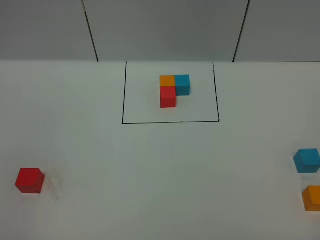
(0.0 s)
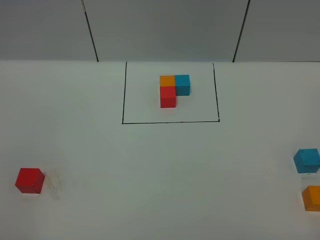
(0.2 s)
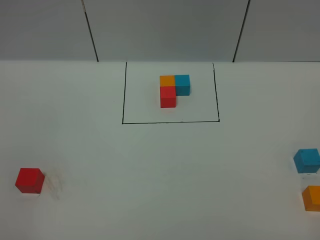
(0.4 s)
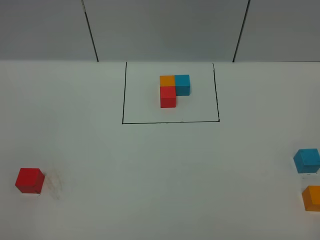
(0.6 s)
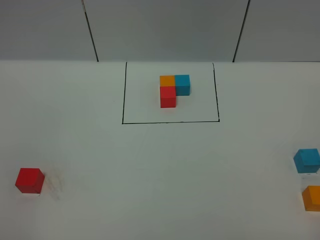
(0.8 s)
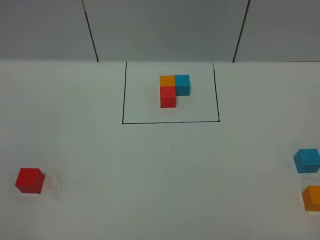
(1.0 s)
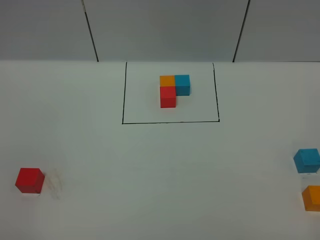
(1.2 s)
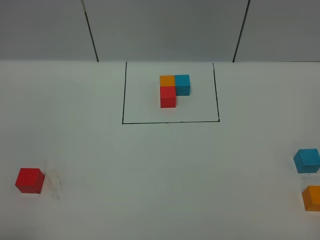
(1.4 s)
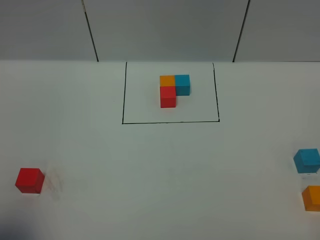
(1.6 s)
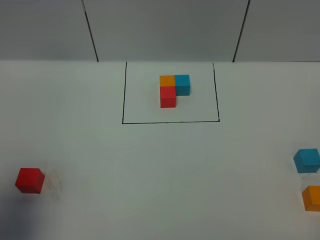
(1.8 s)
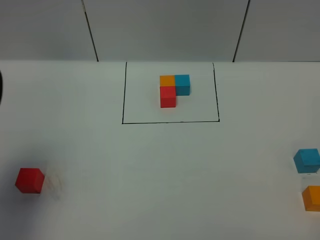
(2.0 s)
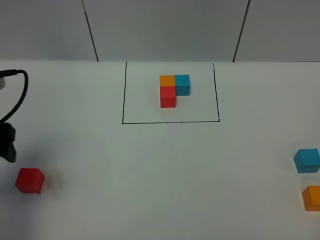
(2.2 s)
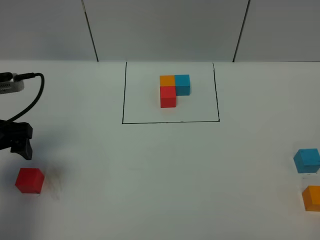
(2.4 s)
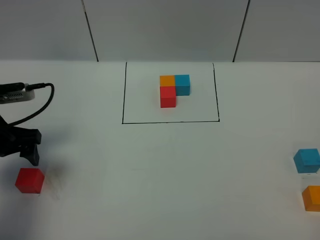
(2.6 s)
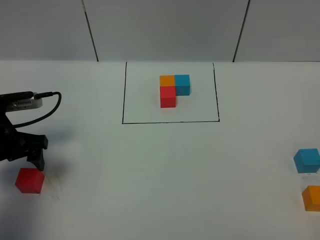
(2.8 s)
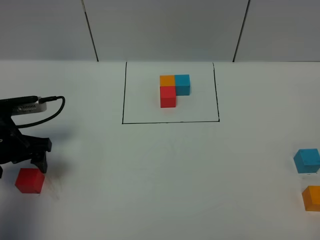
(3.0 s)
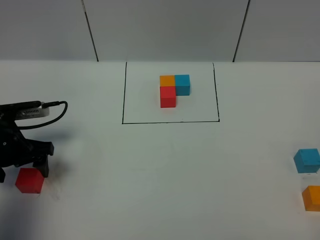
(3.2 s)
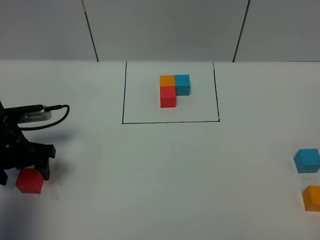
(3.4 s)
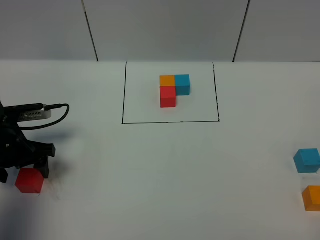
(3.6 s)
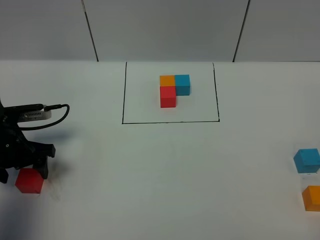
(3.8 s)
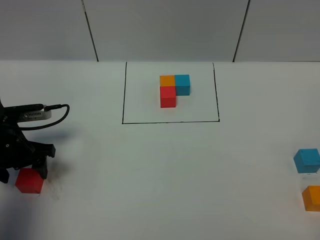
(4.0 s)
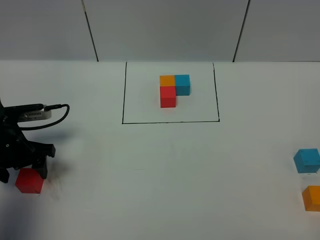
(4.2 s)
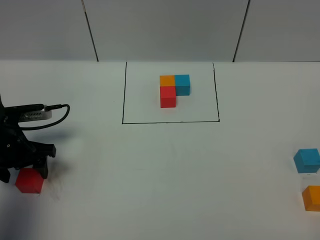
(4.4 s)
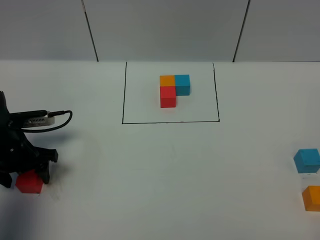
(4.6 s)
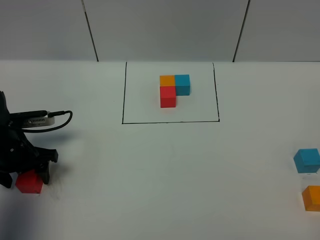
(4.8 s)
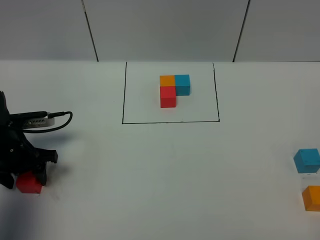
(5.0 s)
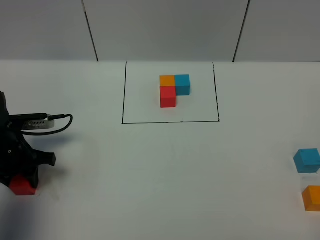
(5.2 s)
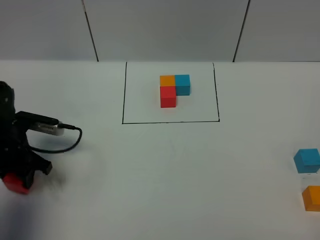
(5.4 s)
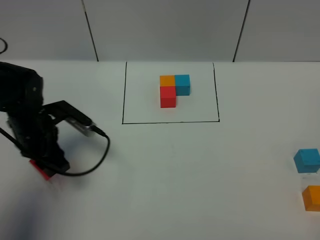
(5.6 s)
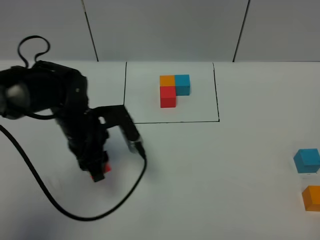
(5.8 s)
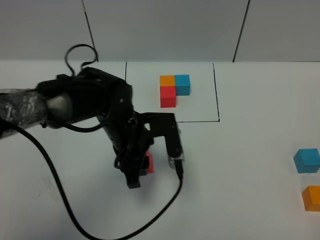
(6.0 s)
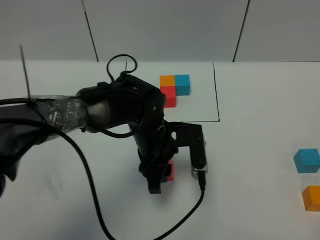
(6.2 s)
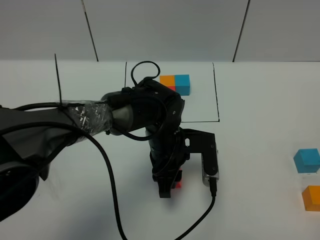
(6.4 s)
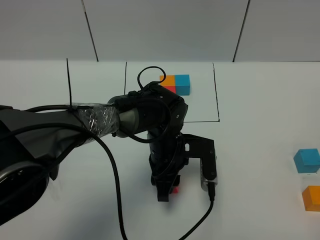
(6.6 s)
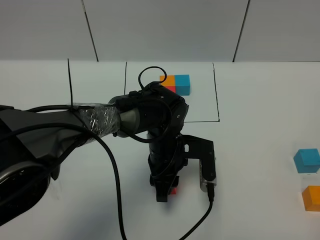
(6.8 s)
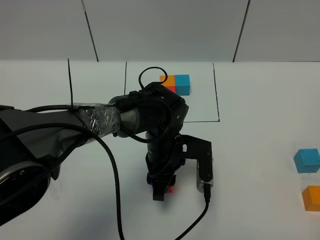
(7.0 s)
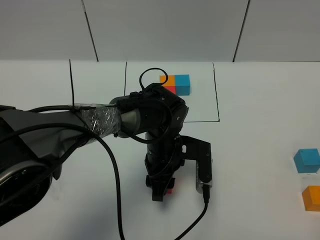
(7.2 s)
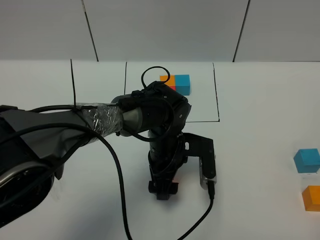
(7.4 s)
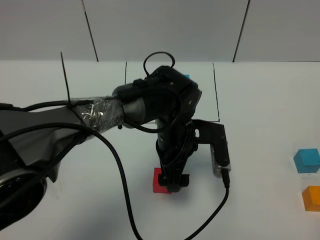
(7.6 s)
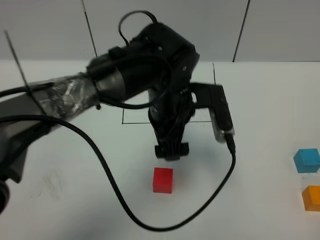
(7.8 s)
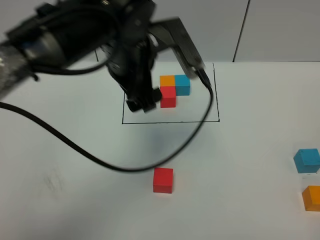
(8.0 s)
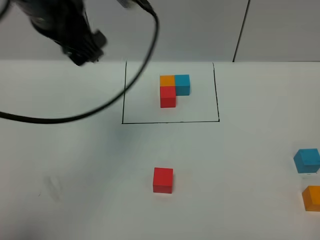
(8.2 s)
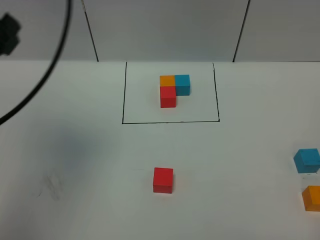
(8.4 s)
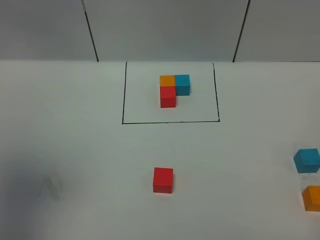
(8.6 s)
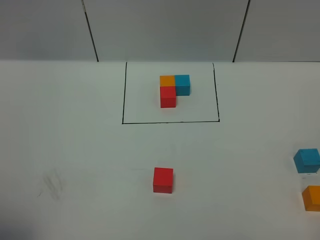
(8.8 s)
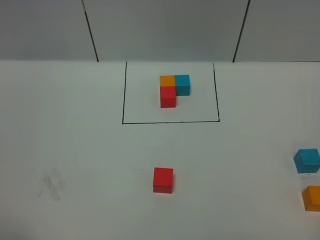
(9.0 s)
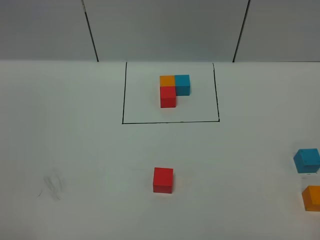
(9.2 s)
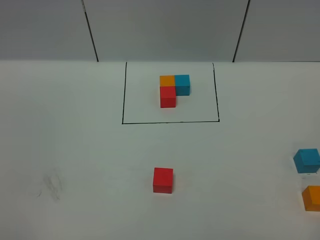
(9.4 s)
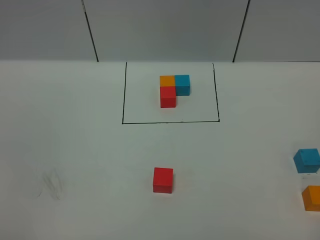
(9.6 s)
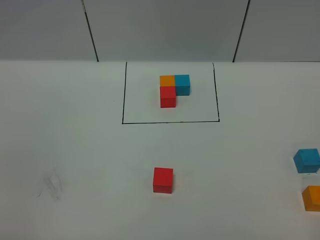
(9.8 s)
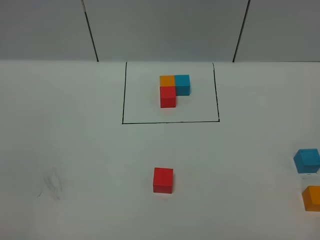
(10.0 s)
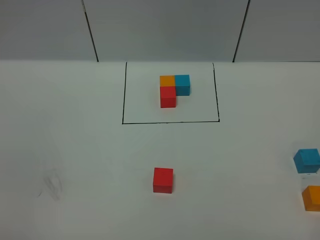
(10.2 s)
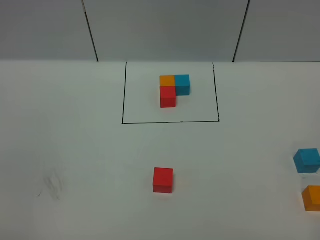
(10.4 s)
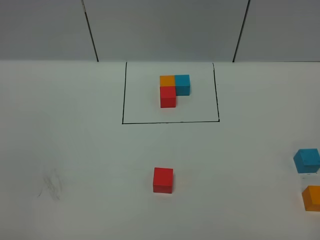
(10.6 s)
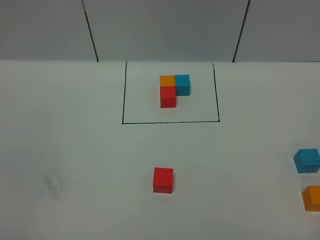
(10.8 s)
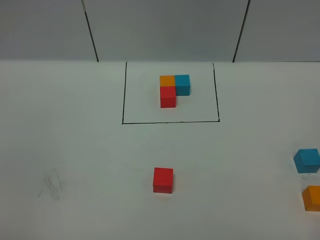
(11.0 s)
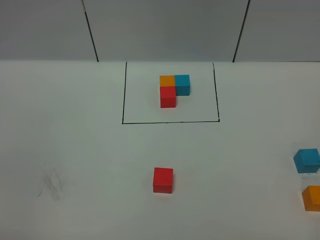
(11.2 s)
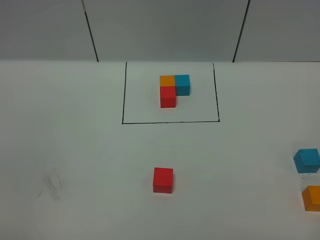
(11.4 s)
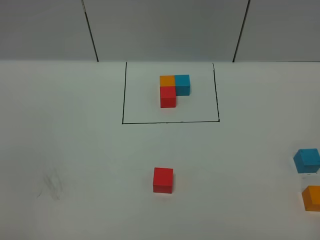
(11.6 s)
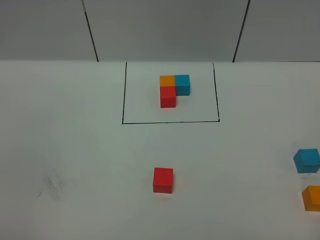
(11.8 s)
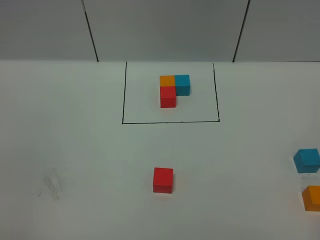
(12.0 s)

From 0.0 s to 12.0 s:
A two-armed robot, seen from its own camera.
Task of the whole recording: According to the building block template in front, assemble the scattered blocks together.
Step, from 1.8 s to 7.4 s: Put the red cube in the center of the table.
From 0.0 s to 1.6 s: The left gripper moves forward and upward, some 10 cm, and opens up.
From 1.6 s to 3.0 s: The left gripper travels forward and downward by about 30 cm, and opens its fingers.
From 3.0 s to 4.4 s: The grippers move only a little.
From 4.4 s to 6.0 s: The left gripper travels to the right by some 25 cm.
From 6.0 s to 7.6 s: The left gripper travels to the right by about 10 cm, and opens.
From 7.6 s to 9.0 s: The left gripper shifts some 50 cm to the left, backward and upward.

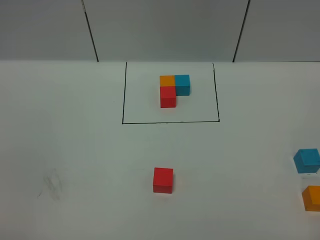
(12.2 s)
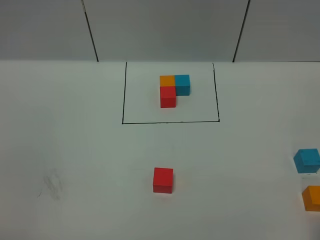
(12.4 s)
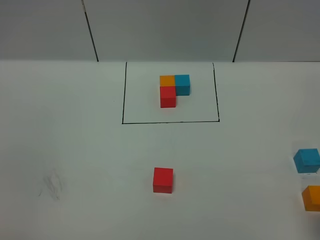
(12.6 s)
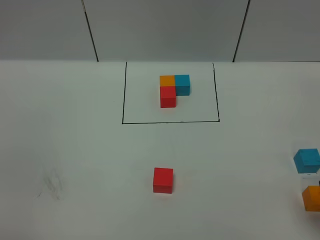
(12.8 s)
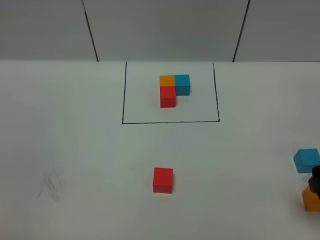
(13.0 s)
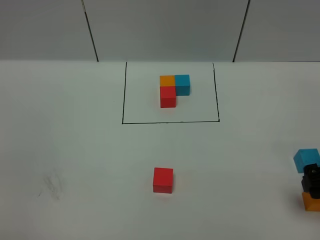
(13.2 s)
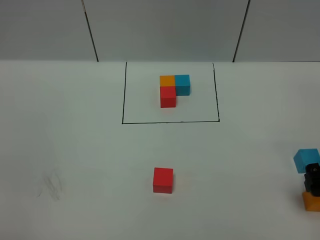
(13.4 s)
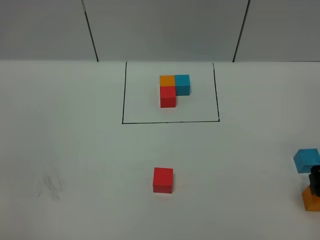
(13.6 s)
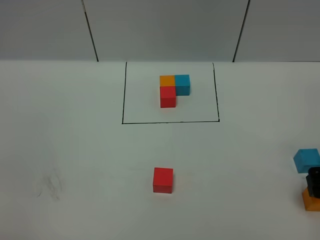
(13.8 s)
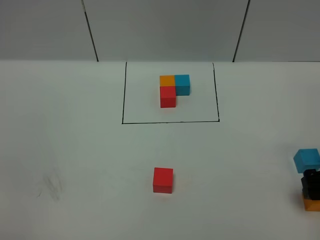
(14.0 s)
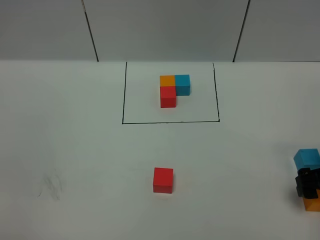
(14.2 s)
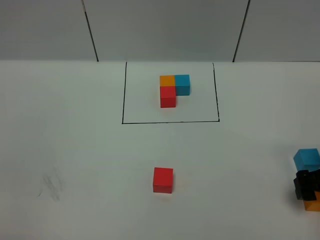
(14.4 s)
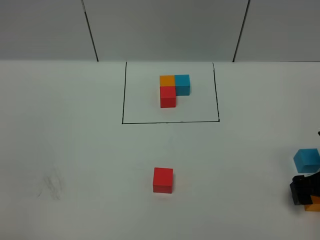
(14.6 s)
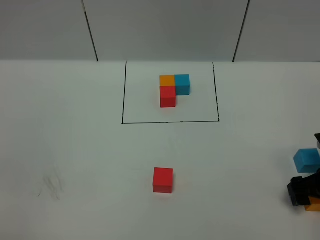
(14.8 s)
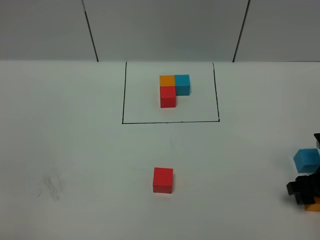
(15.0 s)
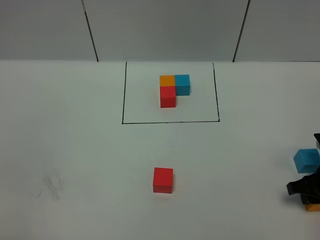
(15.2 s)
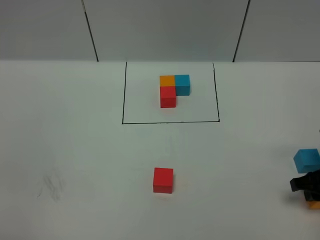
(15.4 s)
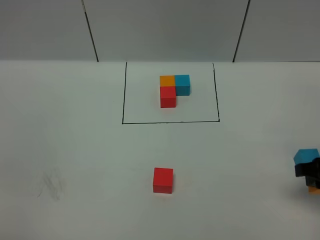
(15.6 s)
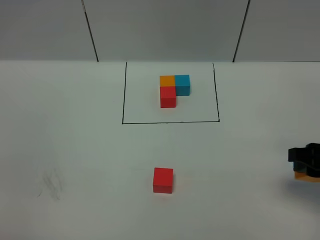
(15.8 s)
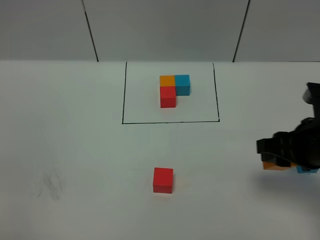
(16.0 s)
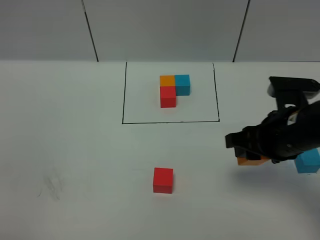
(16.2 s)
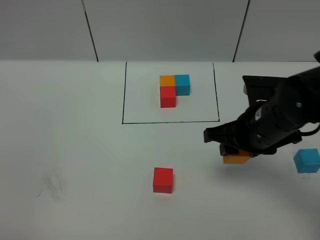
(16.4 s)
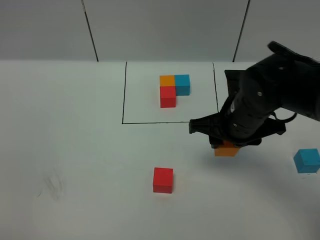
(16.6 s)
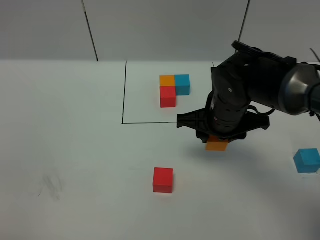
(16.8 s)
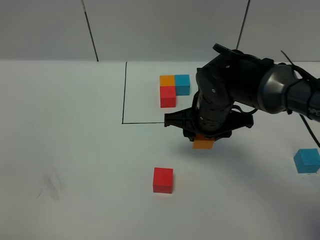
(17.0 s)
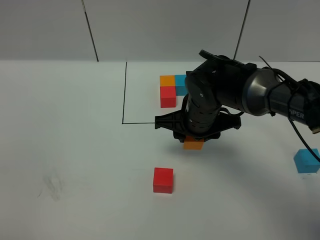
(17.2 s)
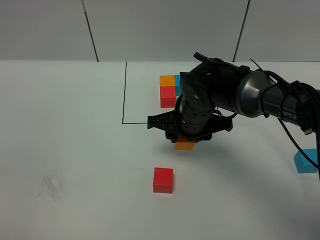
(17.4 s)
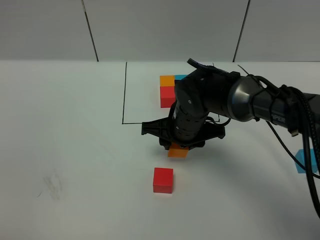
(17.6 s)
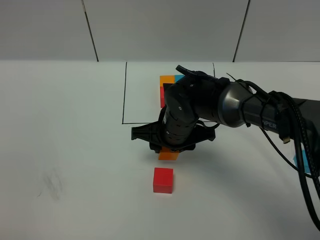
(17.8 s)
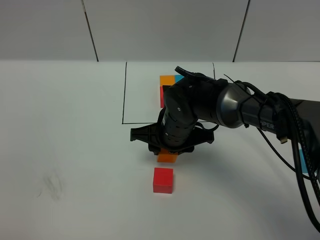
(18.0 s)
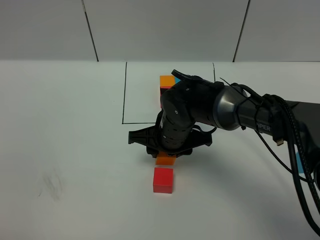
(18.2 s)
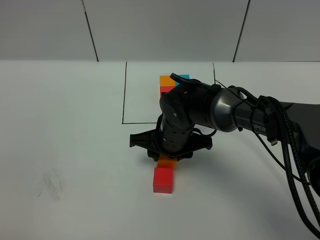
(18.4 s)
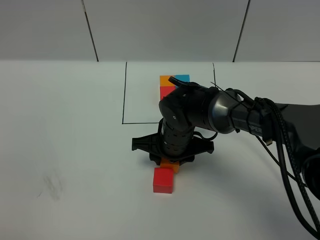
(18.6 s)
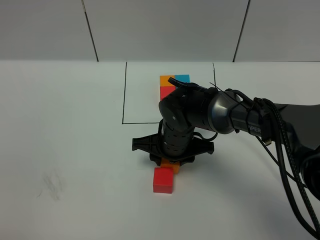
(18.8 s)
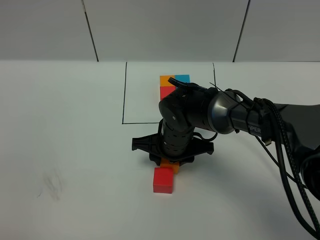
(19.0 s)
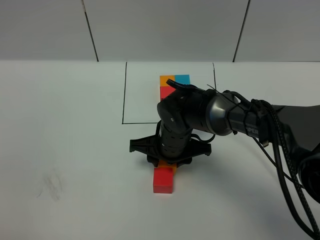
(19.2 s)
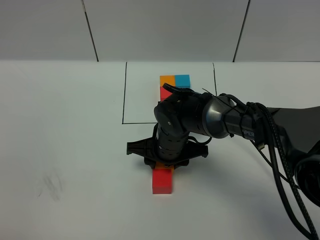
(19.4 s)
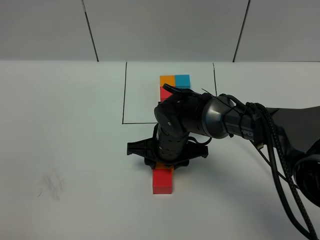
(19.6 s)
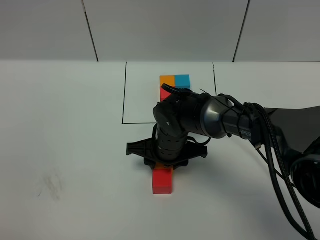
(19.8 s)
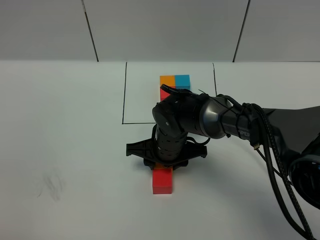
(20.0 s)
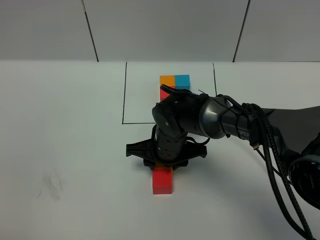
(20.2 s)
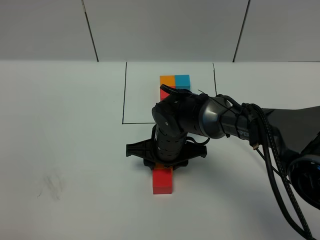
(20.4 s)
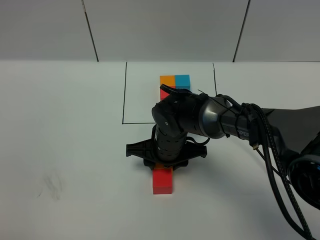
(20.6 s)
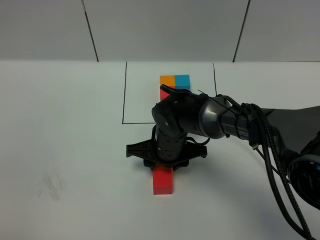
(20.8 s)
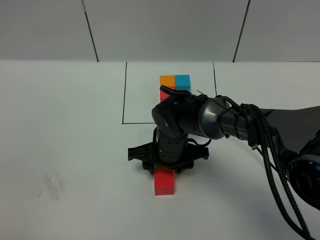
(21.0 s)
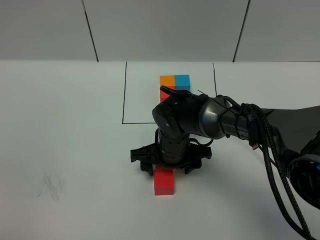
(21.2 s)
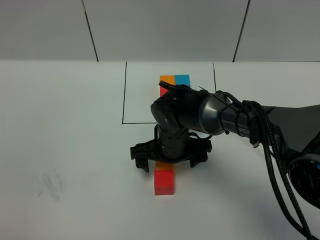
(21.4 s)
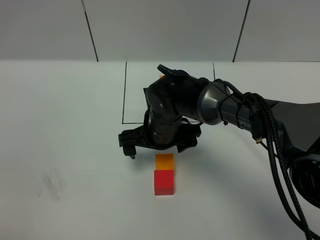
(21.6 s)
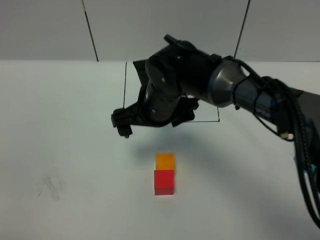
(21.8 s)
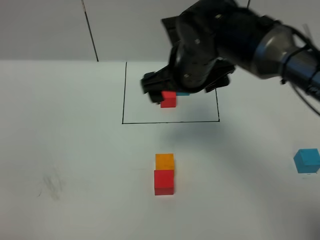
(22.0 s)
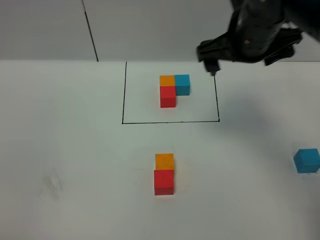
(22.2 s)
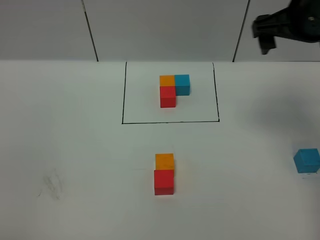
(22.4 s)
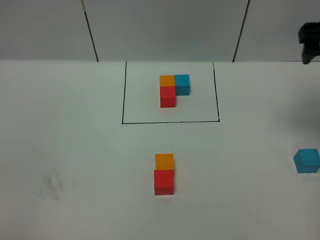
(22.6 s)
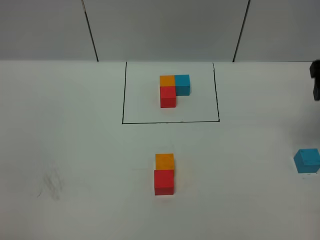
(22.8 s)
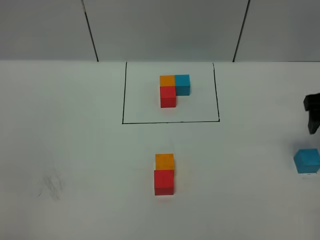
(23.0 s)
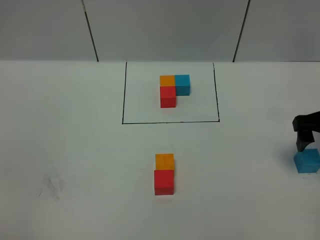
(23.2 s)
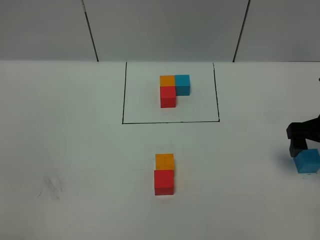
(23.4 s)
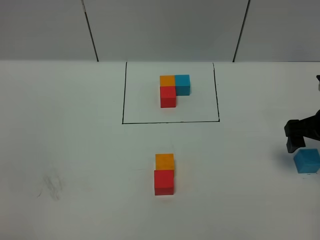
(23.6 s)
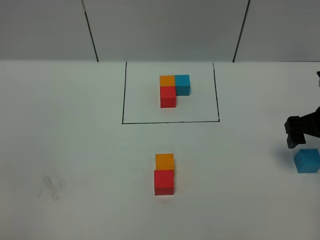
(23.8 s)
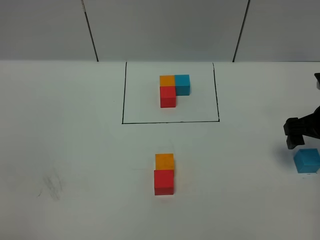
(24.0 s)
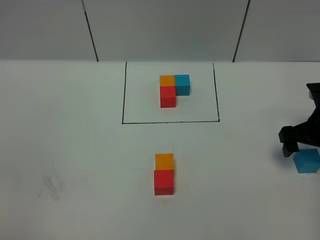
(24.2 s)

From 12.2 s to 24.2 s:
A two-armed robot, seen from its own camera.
Task of the whole recording: According to the building block template in front, assemble the scattered blocks together.
Step, from 12.2 s to 21.4 s: Put the orange cube on the behind of the red cube.
From 12.2 s to 13.8 s: The right gripper heads forward and downward, covering roughly 25 cm, and opens up.
From 13.8 s to 15.2 s: The right gripper moves downward, about 5 cm, and closes.
From 15.2 s to 16.6 s: The right gripper travels to the left and upward by about 20 cm.
From 16.6 s to 18.2 s: The right gripper heads to the left and downward, covering approximately 10 cm.
From 18.2 s to 21.2 s: The grippers make only small movements.
From 21.2 s to 22.6 s: The right gripper shifts about 35 cm to the right and upward.
From 22.6 s to 24.2 s: The right gripper moves downward, approximately 20 cm.
